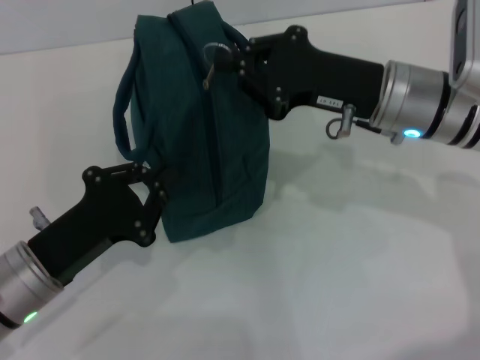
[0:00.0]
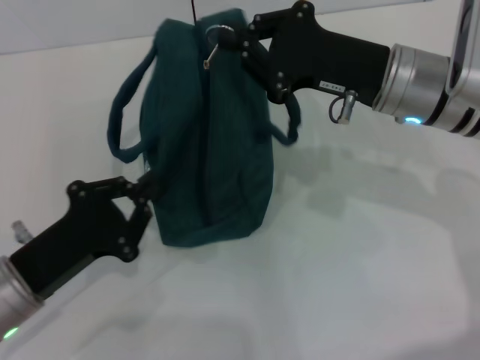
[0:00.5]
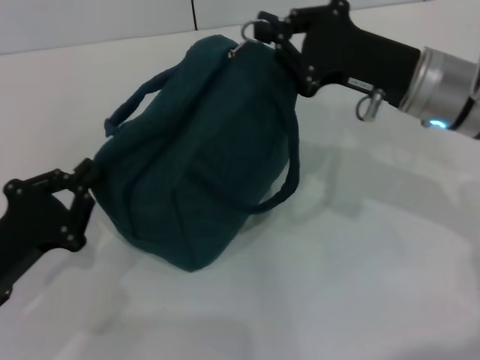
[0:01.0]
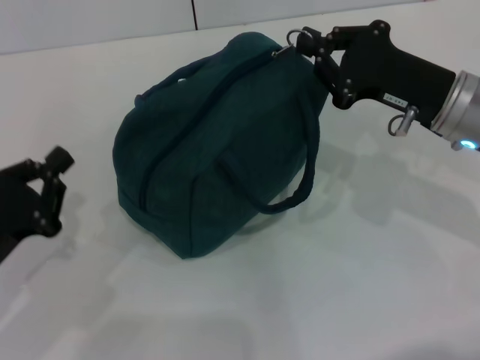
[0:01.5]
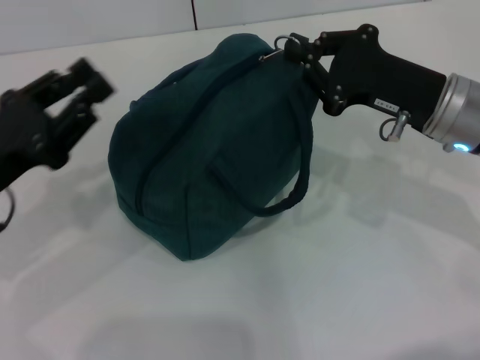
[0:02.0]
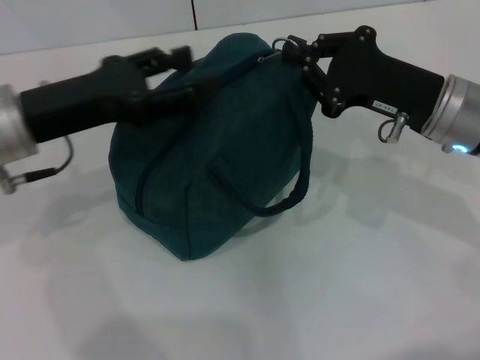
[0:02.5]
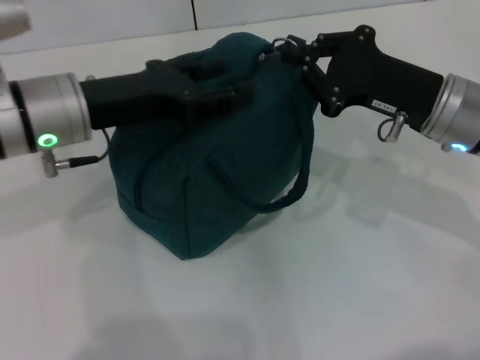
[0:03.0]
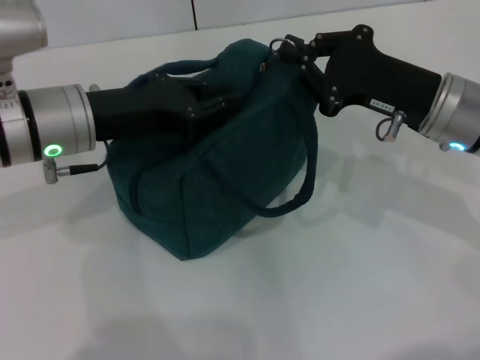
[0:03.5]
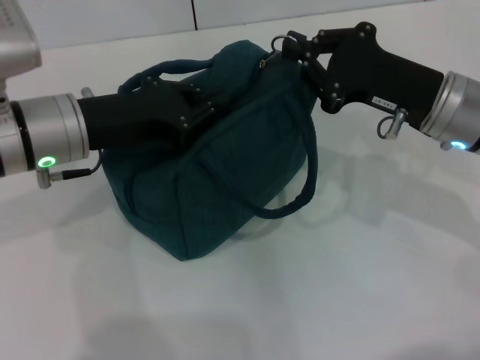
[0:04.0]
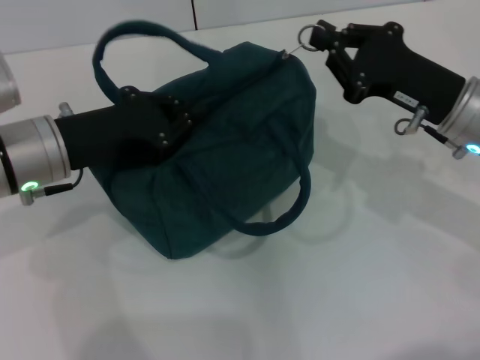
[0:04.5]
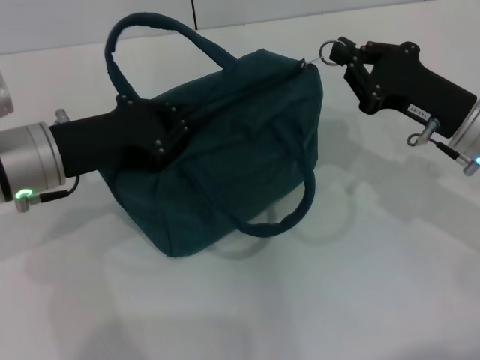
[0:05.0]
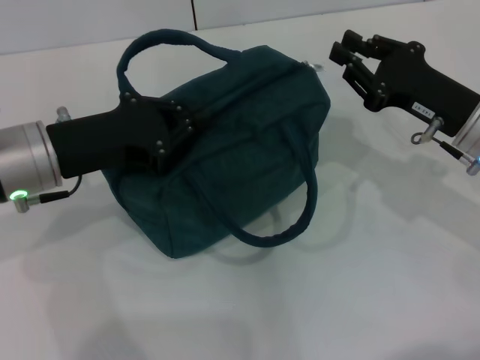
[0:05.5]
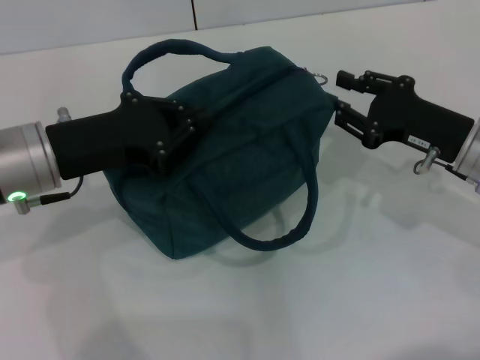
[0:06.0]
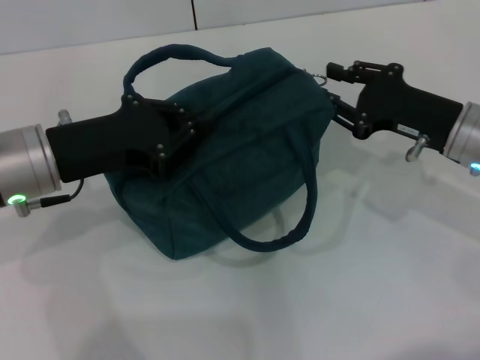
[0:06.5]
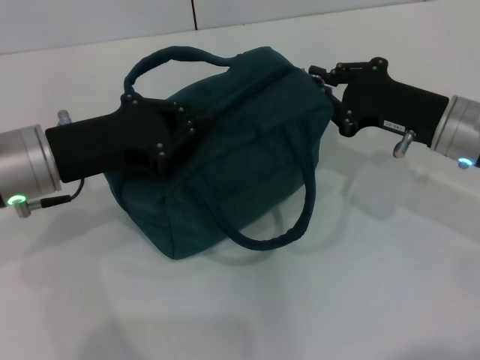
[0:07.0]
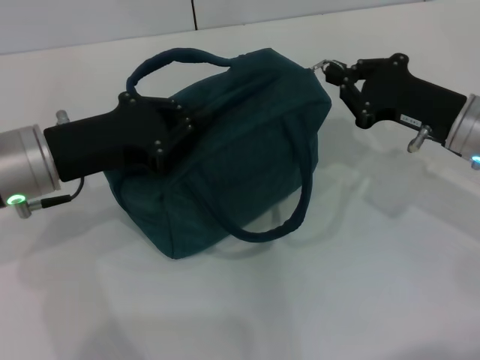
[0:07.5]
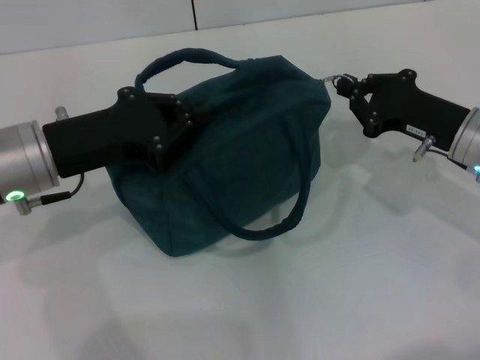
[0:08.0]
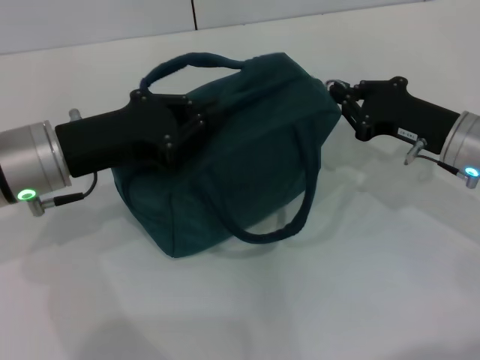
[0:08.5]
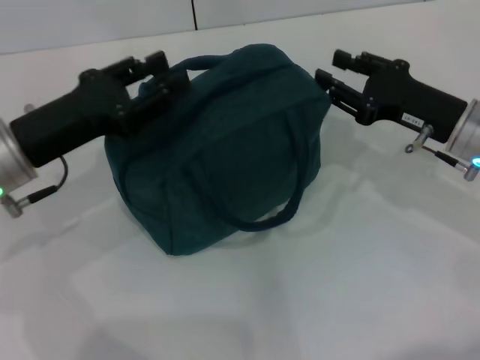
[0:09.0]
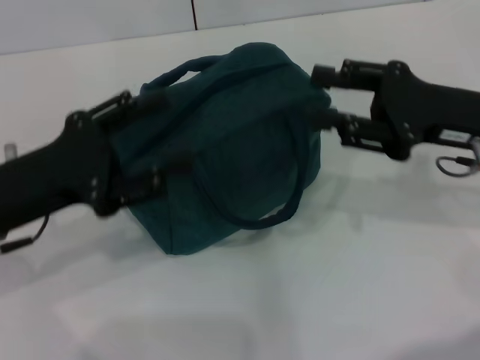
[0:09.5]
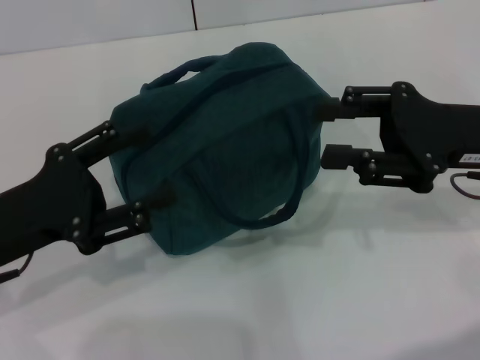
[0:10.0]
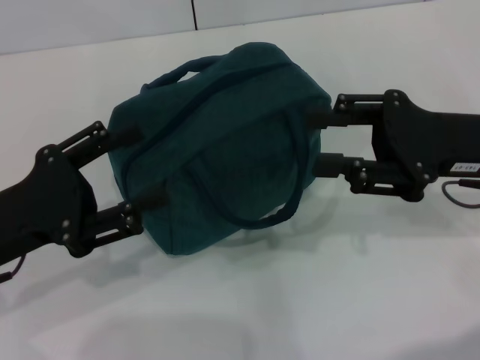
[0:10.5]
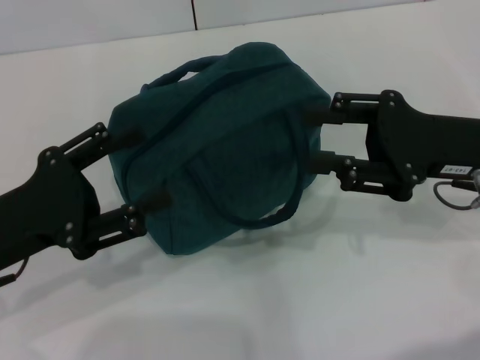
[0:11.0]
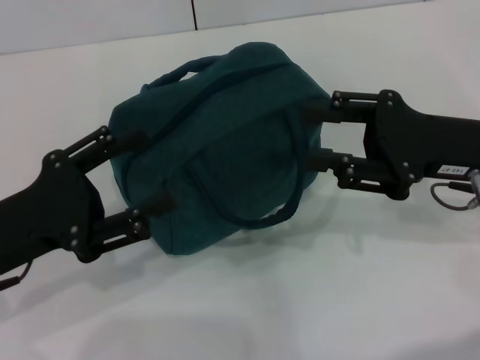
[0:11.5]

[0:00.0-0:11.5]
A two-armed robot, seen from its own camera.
Step, 0:00.0 to 0:08.5: Zip up the lunch bag with your right hand.
0:00.0 to 0:02.0: The right gripper shifts by approximately 5 cm. Meanwhile the left gripper moves upward, roughly 5 cm.
0:02.0 to 0:04.0: The left gripper heads to the right and forward, covering approximately 10 cm, and opens, then closes once more.
0:04.0 to 0:06.0: The right gripper shifts by some 5 cm, and opens its fingers.
0:06.0 to 0:07.5: The right gripper closes up.
0:07.5 to 0:09.5: The right gripper moves some 5 cm, and opens. The left gripper ends up roughly 5 cm from where it was, and opens up.
0:09.5 to 0:11.5: The grippers move only a little.

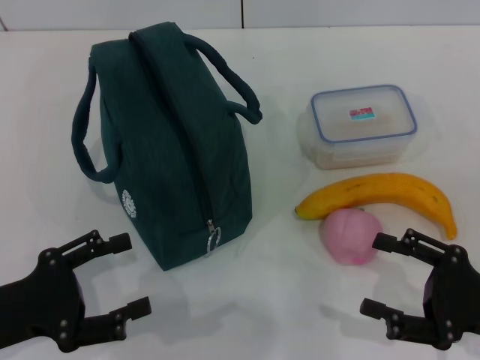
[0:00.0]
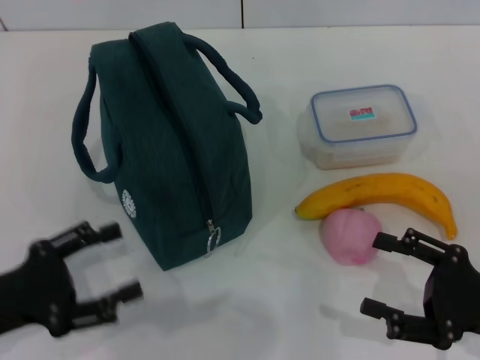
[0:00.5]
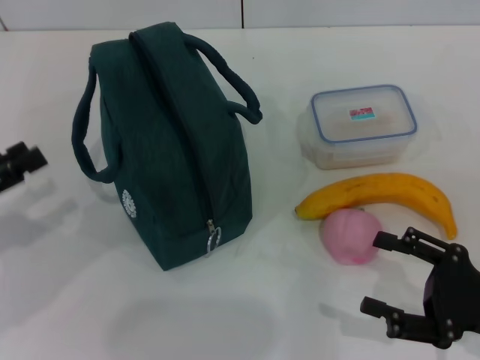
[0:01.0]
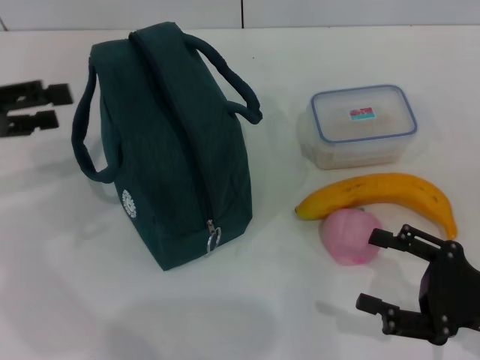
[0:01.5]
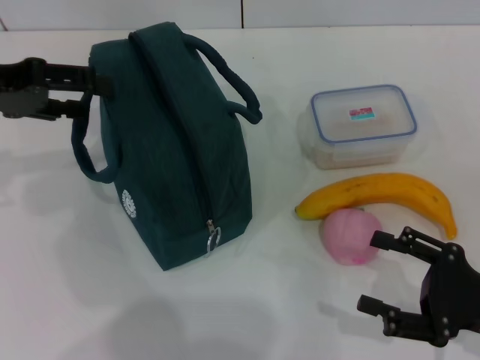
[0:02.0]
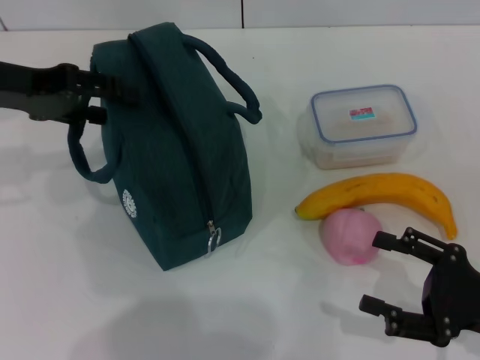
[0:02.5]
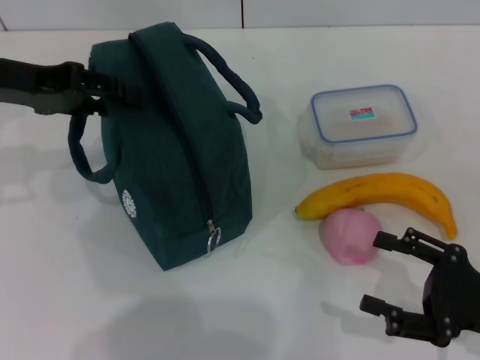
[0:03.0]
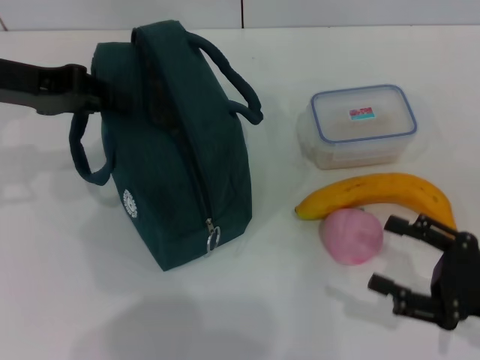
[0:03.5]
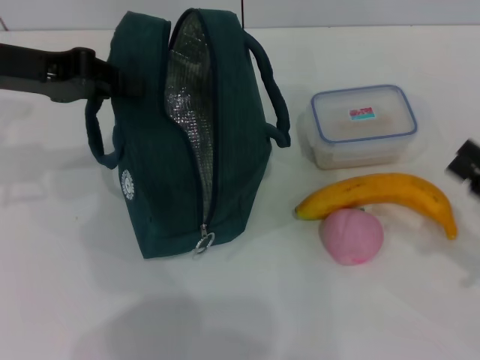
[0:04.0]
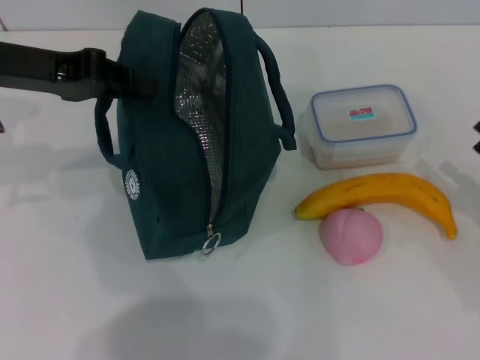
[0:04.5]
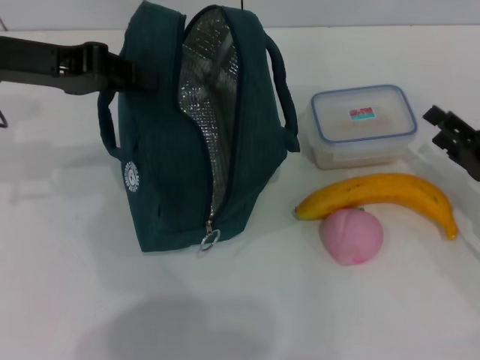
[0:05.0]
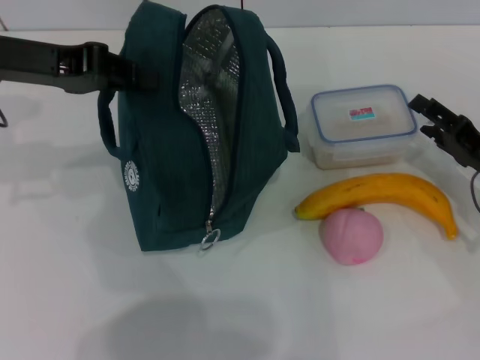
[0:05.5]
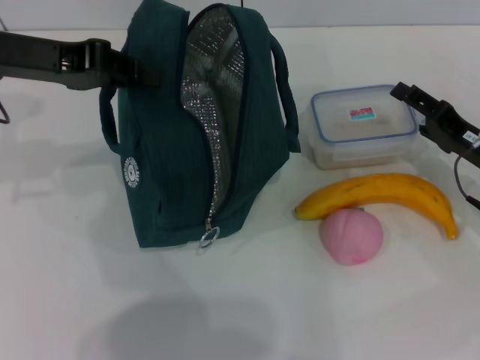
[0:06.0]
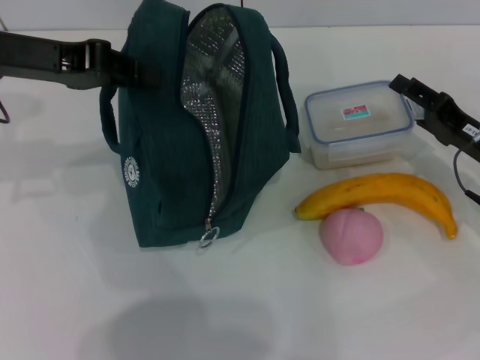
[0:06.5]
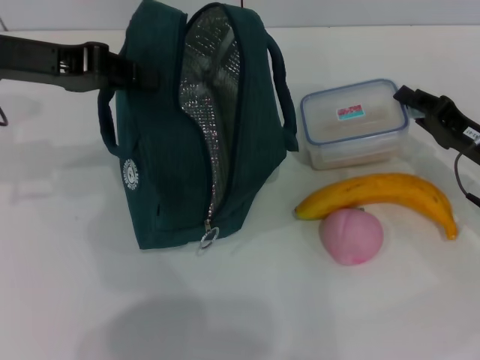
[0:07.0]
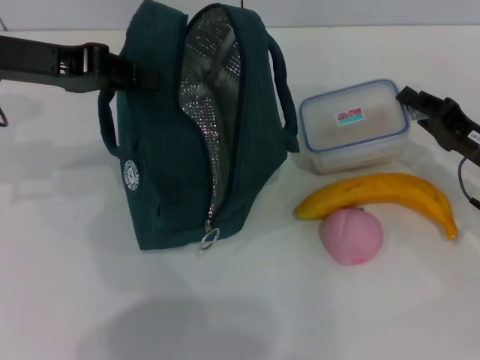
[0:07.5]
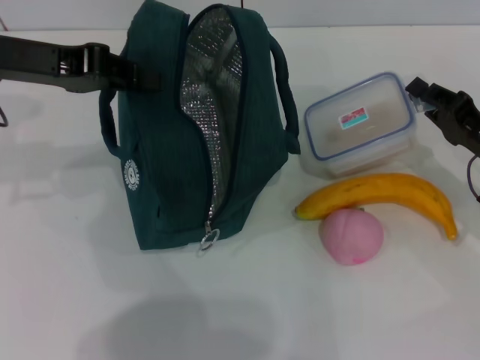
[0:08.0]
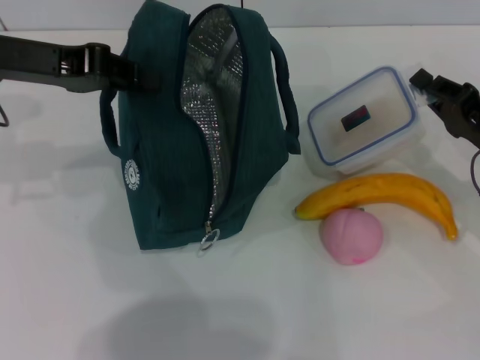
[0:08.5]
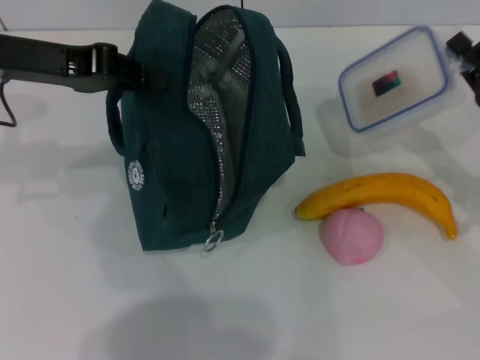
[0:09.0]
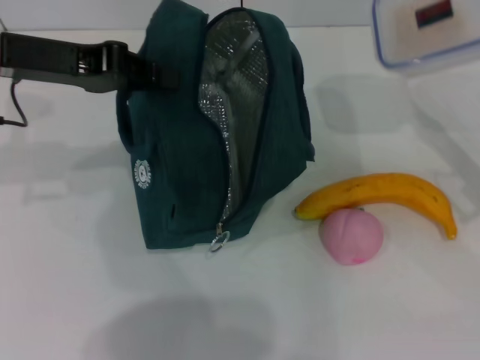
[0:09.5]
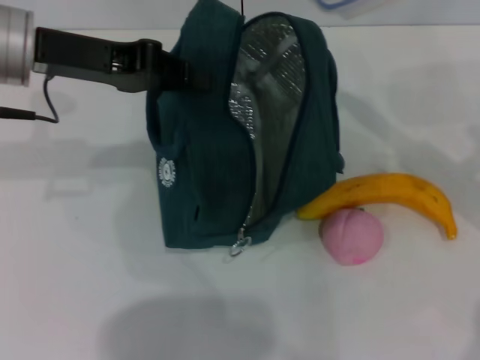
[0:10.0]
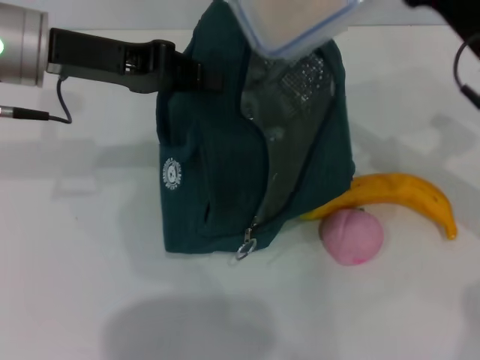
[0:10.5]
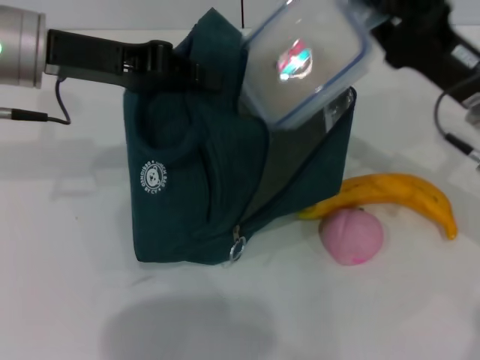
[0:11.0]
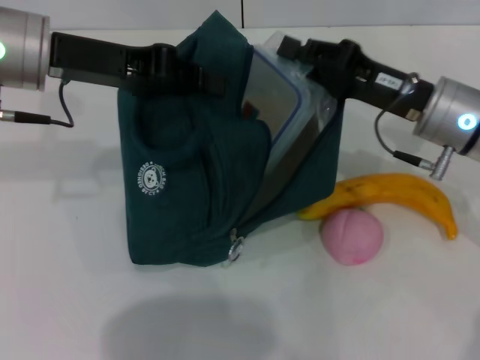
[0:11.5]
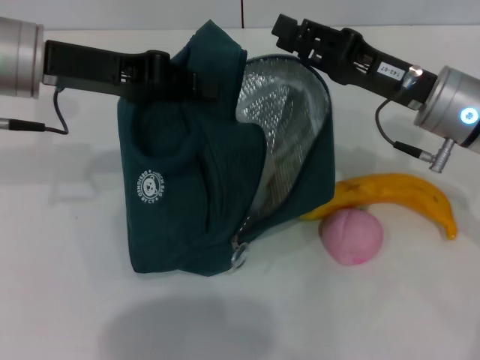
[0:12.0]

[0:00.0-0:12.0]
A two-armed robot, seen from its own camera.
Step, 0:00.0 to 0:04.0: Hold the lunch bag with your left hand.
Step, 0:04.5 to 0:07.5: Pick up the lunch box with your right hand.
Step, 0:08.0 to 0:11.5: Place the lunch box into the lunch bag with your right hand.
0:00.0 to 0:02.0: The left gripper is displaced forward and upward by roughly 20 cm.
0:02.0 to 0:04.0: The right gripper shifts by roughly 5 cm. Meanwhile the left gripper closes its fingers.
0:04.0 to 0:06.0: The right gripper travels forward by some 10 cm.
0:06.0 to 0:08.0: The right gripper closes its fingers.
0:08.0 to 0:10.0: The right gripper shifts some 10 cm upward.
0:10.0 to 0:12.0: The right gripper moves to the left, some 5 cm.

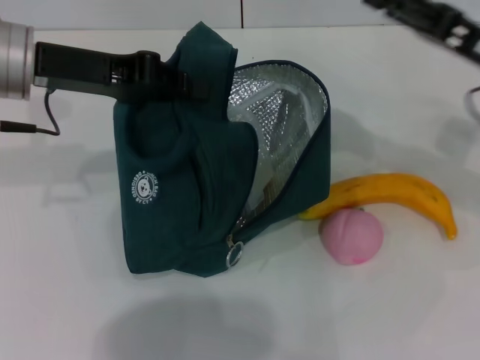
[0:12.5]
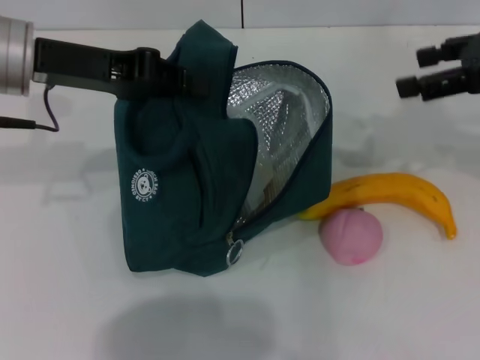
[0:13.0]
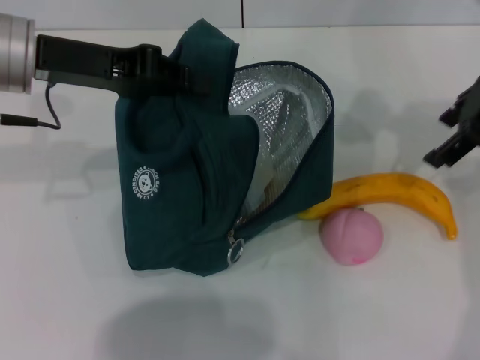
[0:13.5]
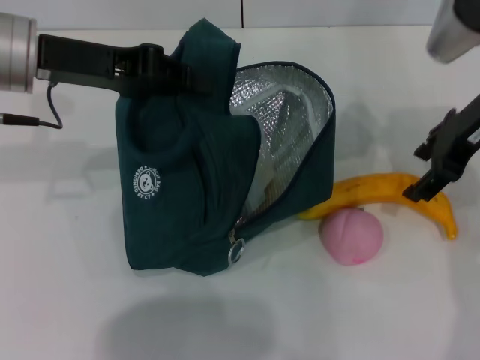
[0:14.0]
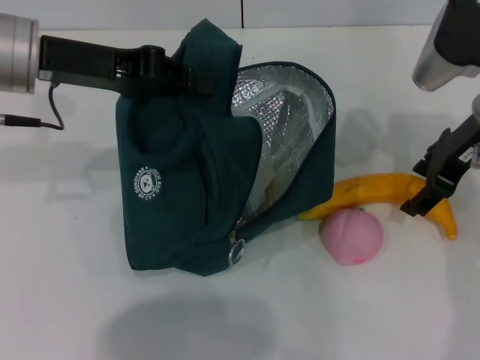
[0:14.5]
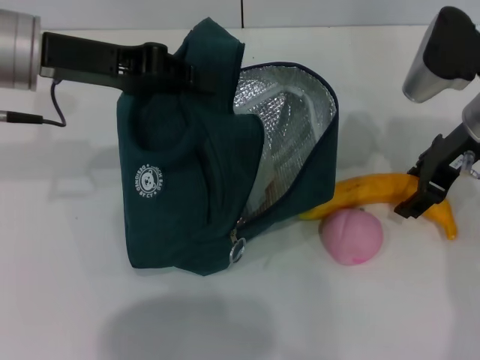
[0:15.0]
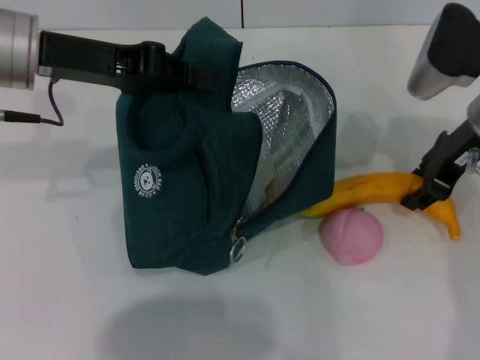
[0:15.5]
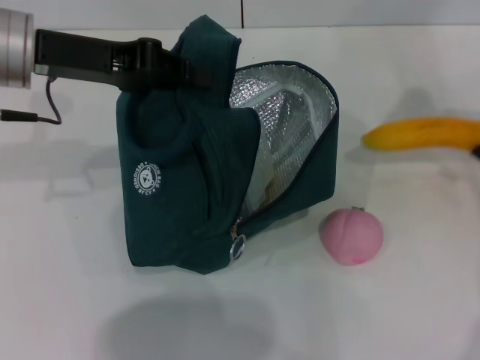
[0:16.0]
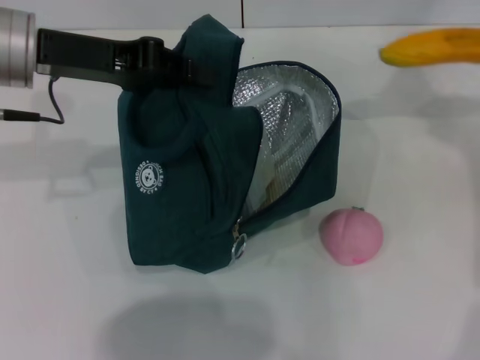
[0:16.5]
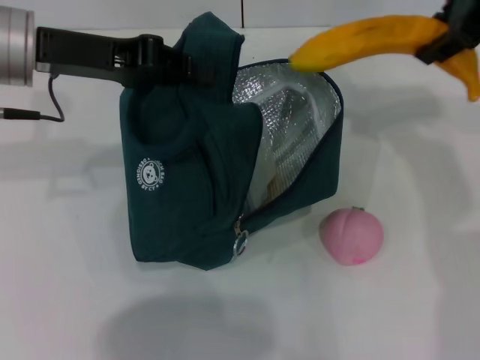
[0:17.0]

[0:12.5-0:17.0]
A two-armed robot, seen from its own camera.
Step, 0:12.5 to 0:15.0: Take the banana with your right hand.
0:12.5 to 0:14.5: The right gripper moves approximately 10 cm upward and comes back.
0:14.5 to 0:17.0: The right gripper moves upward, about 15 cm, and closes.
